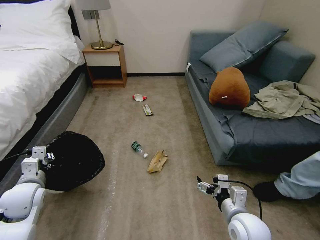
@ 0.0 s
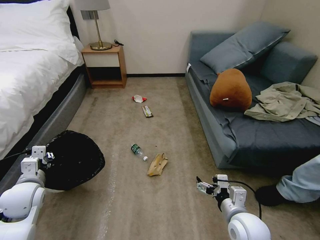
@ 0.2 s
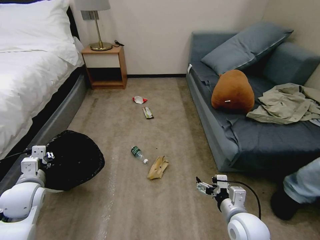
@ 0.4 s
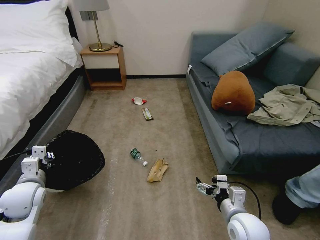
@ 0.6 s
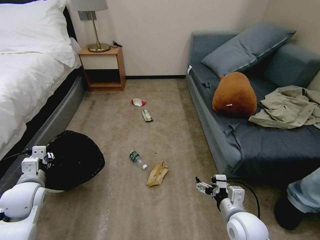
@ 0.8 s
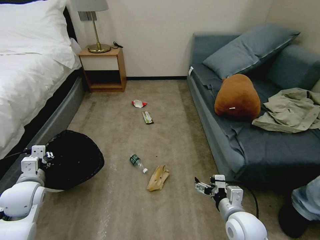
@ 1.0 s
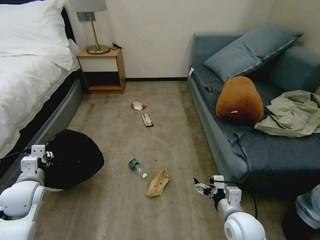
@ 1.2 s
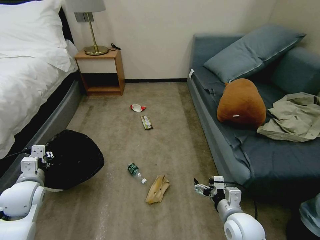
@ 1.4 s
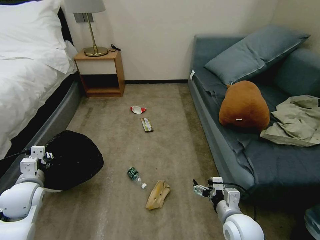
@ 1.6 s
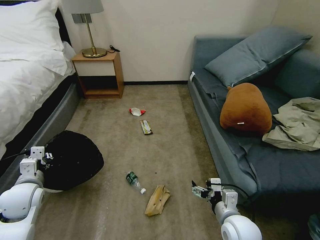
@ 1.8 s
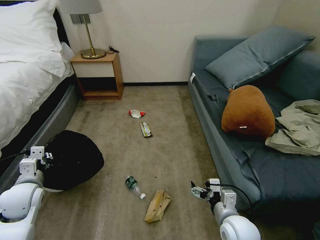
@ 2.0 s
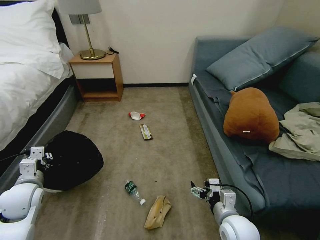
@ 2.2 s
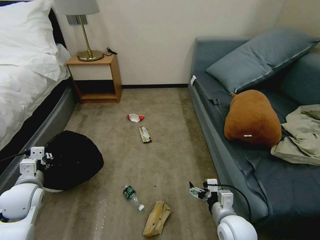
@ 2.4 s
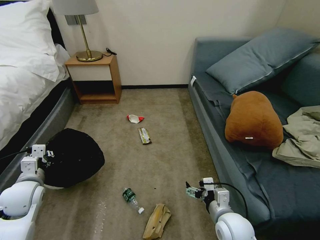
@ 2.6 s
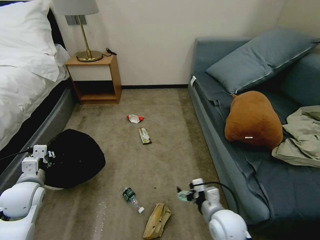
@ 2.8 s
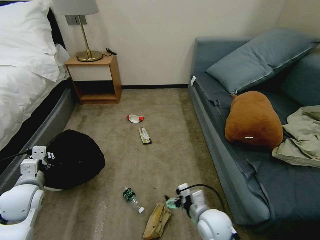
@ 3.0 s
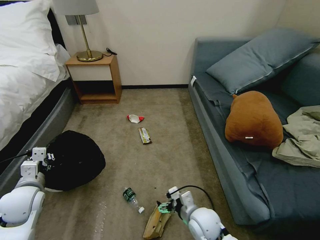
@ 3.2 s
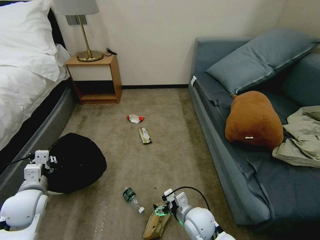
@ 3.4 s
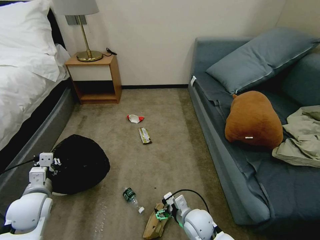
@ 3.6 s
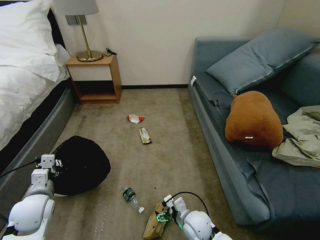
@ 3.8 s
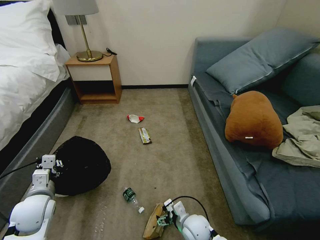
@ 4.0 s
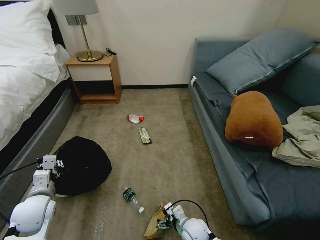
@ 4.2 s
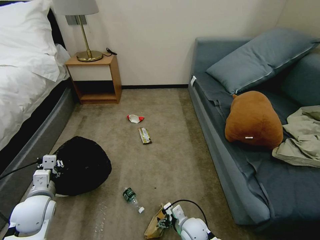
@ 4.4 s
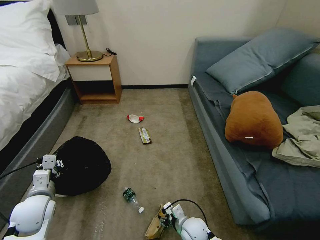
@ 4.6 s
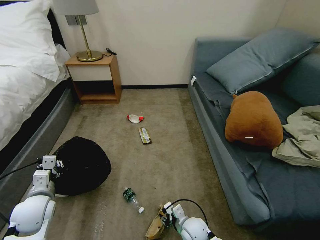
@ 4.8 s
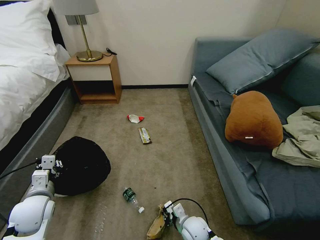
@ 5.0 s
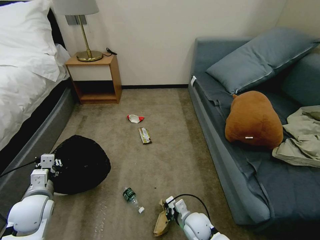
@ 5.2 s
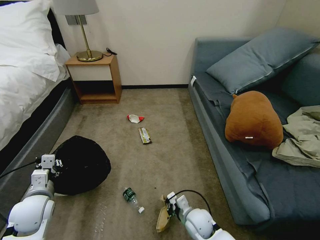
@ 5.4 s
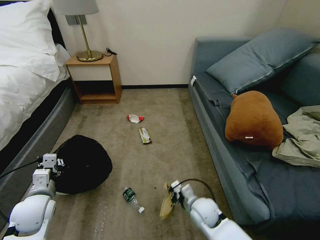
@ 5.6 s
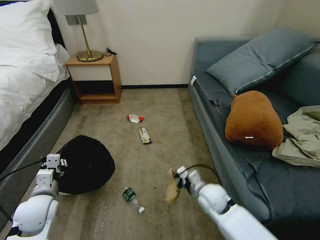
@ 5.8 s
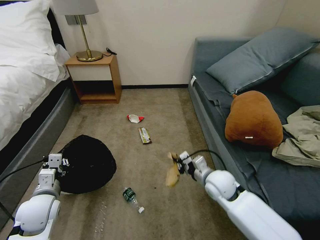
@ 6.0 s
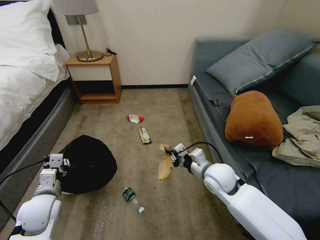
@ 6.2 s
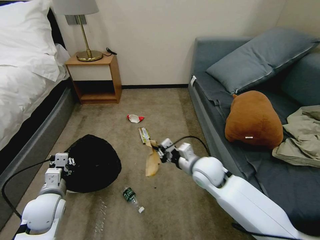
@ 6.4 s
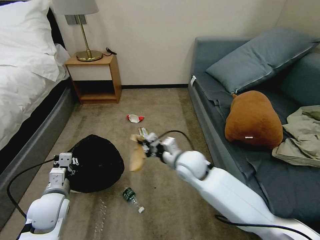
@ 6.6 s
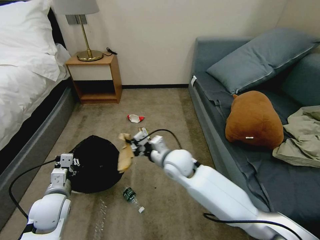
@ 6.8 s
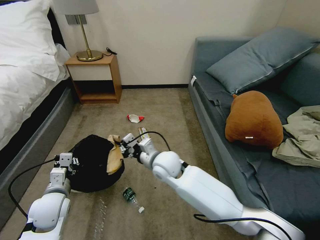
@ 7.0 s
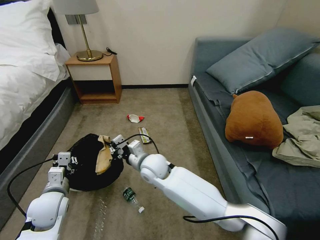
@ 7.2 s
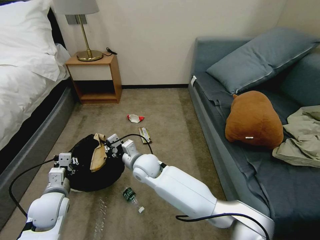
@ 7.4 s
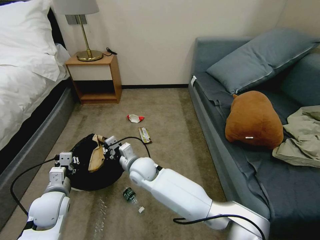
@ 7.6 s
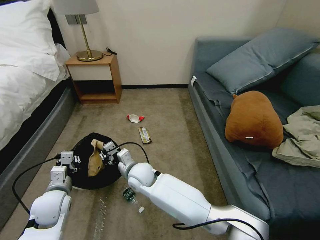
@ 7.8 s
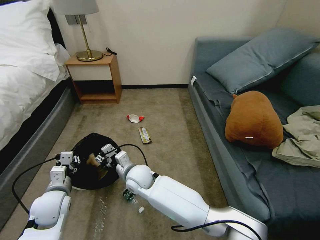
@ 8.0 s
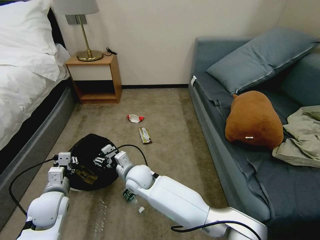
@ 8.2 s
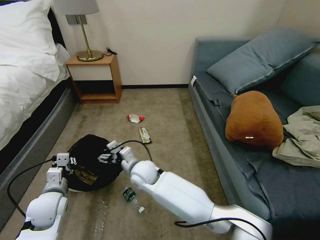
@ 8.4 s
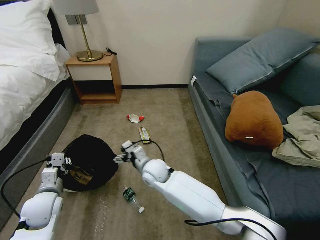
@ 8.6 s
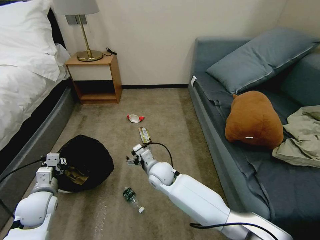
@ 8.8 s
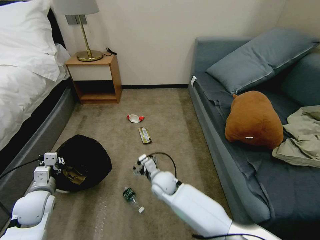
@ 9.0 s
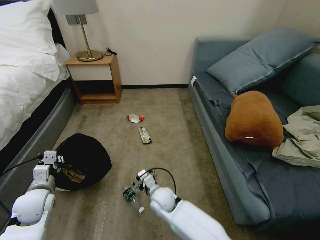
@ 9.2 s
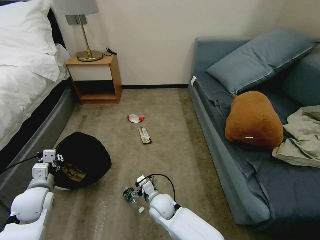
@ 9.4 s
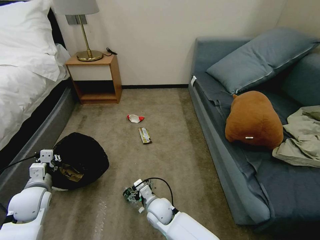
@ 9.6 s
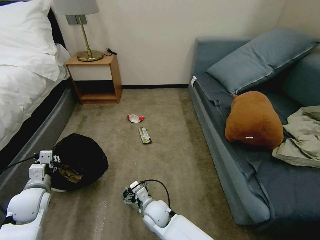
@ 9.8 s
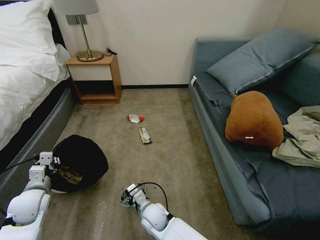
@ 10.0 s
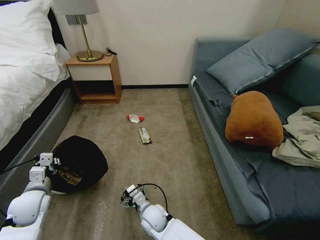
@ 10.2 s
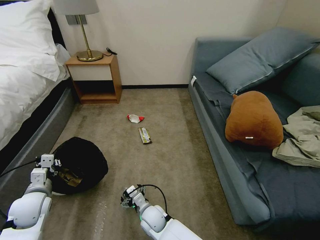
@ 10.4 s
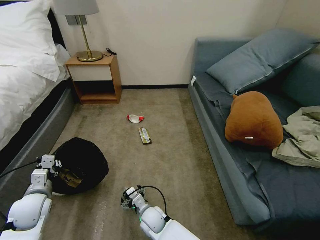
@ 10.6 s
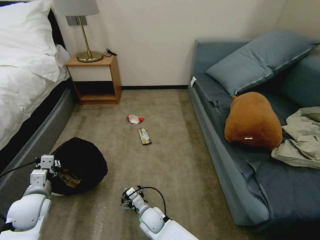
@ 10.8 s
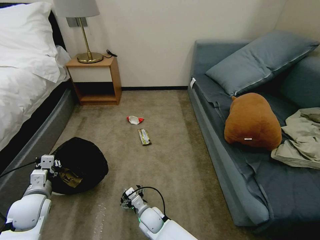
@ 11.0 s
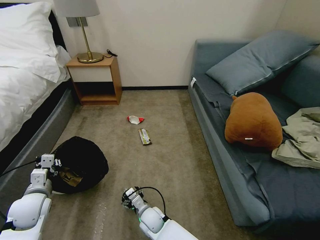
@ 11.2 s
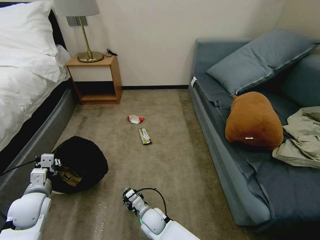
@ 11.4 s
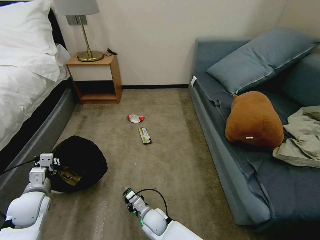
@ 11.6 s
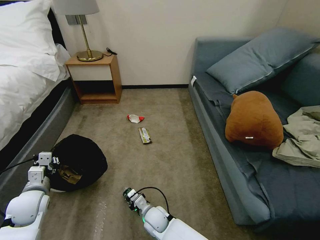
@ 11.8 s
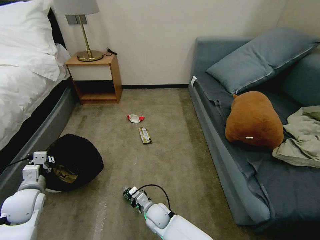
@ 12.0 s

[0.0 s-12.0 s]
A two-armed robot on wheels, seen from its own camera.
Task of the whole recording: Pick up the trash bin, then pick up the garbage on the floor and place it into the trash bin.
1.6 to 3.0 s: The right gripper moves to the left, some 5 cm.
3.0 to 4.4 s: The left gripper shifts by roughly 5 cm; the right gripper goes approximately 10 cm downward.
4.4 to 6.0 s: The right gripper moves upward, forward and to the right, approximately 20 cm, and closes its fingers.
6.0 to 7.6 s: The right gripper heads to the left, covering roughly 25 cm.
7.6 to 9.0 s: The right gripper heads to the right and downward, covering roughly 10 cm, and opens its fingers, while the left gripper travels to the left by approximately 5 cm.
9.0 to 10.4 s: The right gripper moves backward and downward, roughly 15 cm.
10.4 to 12.0 s: The right gripper closes its fingers.

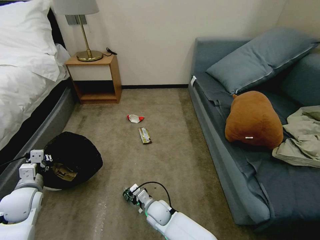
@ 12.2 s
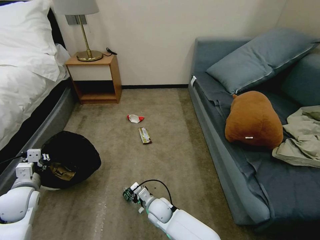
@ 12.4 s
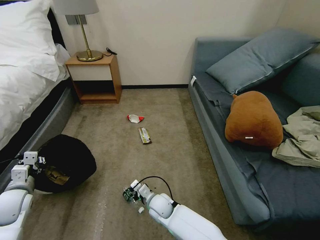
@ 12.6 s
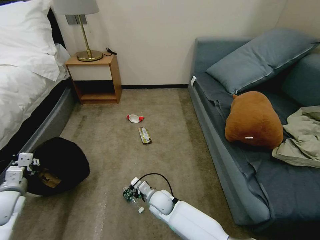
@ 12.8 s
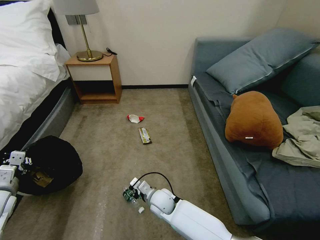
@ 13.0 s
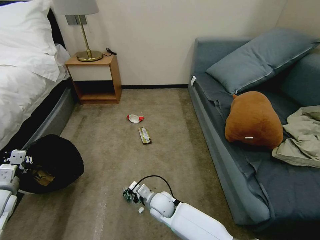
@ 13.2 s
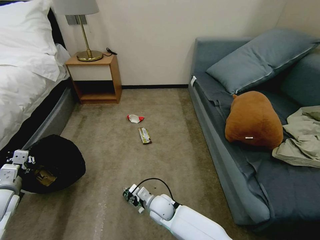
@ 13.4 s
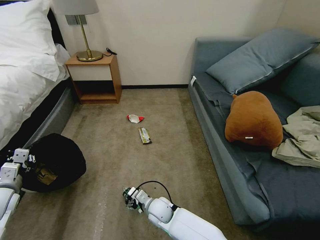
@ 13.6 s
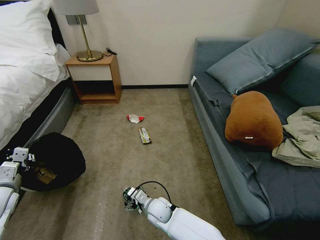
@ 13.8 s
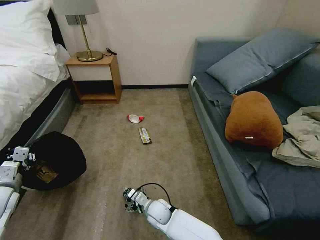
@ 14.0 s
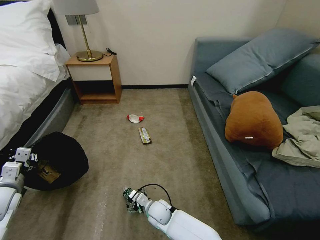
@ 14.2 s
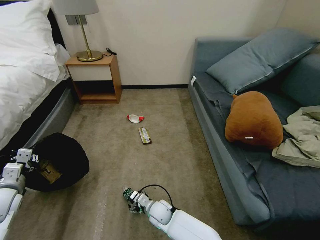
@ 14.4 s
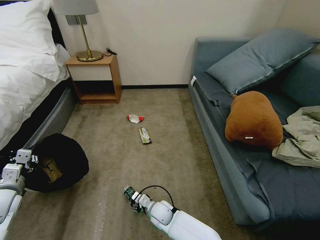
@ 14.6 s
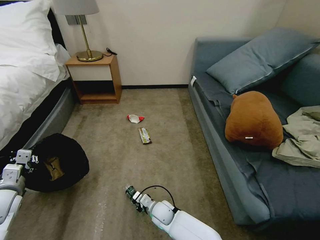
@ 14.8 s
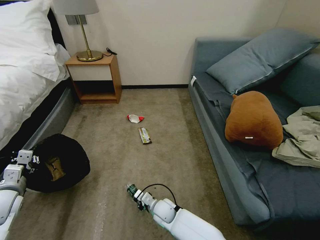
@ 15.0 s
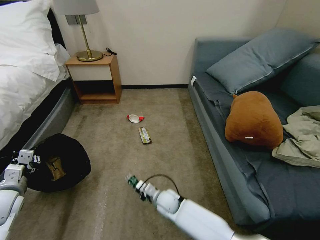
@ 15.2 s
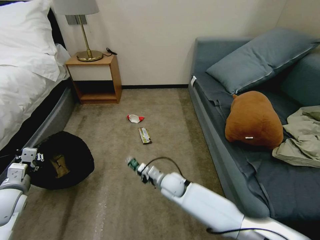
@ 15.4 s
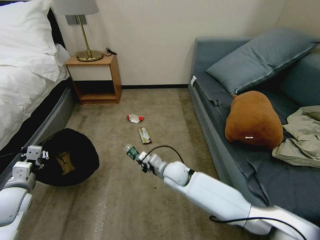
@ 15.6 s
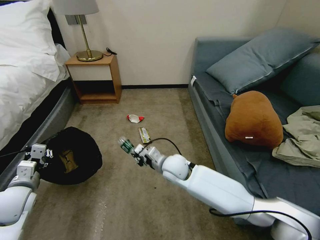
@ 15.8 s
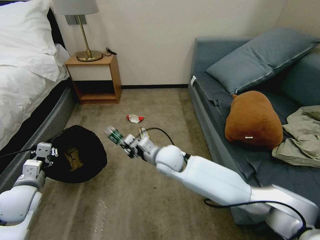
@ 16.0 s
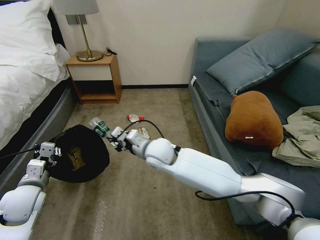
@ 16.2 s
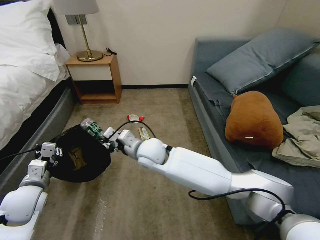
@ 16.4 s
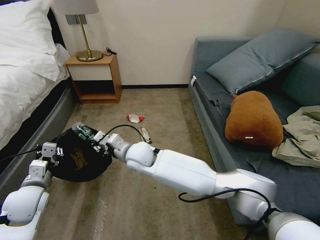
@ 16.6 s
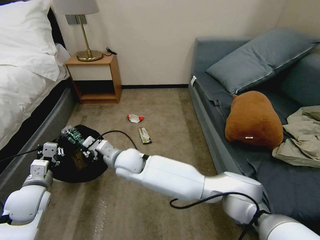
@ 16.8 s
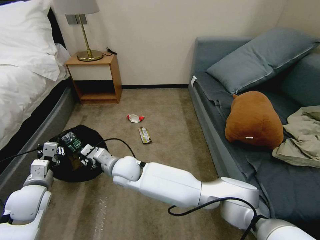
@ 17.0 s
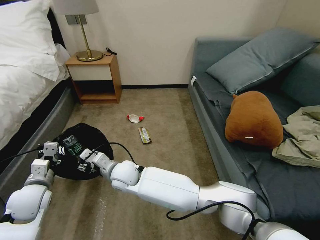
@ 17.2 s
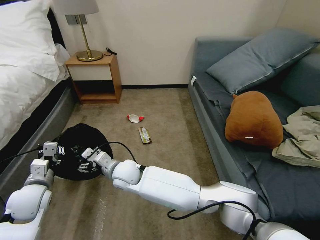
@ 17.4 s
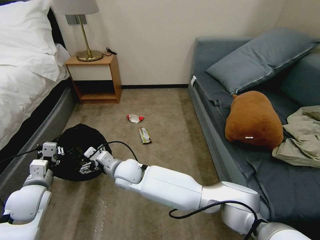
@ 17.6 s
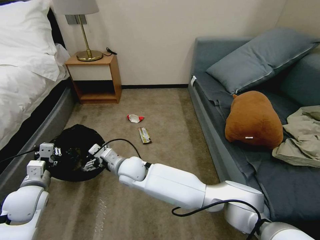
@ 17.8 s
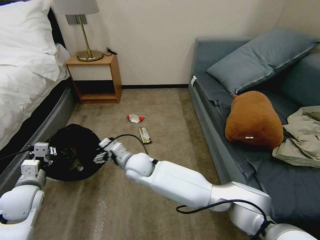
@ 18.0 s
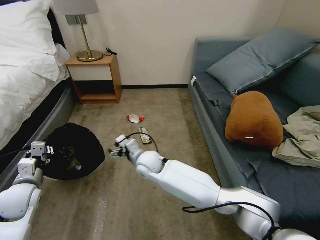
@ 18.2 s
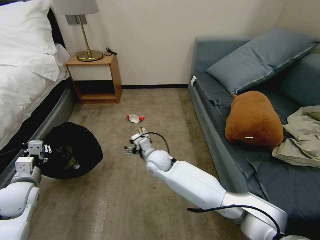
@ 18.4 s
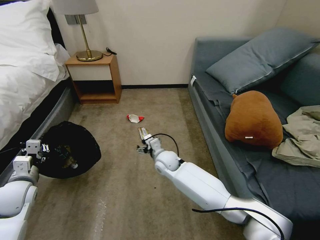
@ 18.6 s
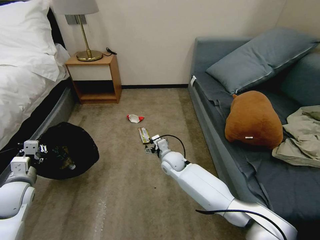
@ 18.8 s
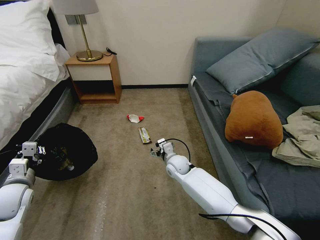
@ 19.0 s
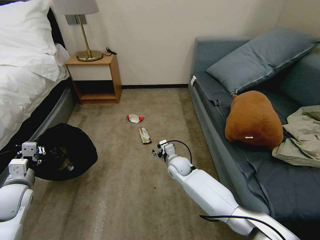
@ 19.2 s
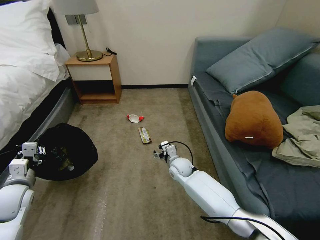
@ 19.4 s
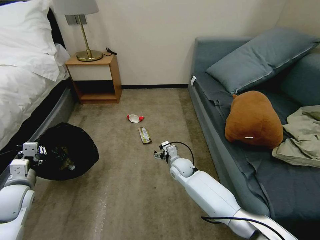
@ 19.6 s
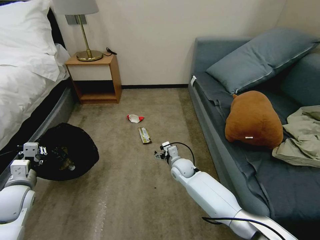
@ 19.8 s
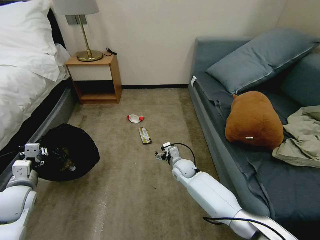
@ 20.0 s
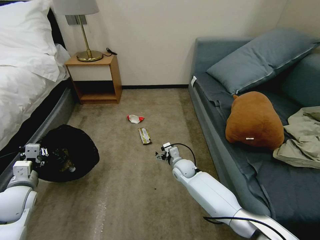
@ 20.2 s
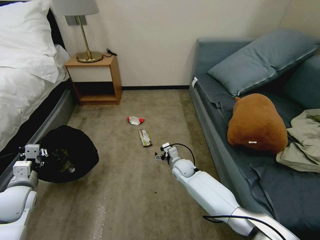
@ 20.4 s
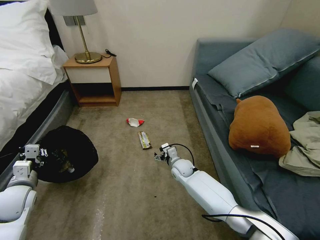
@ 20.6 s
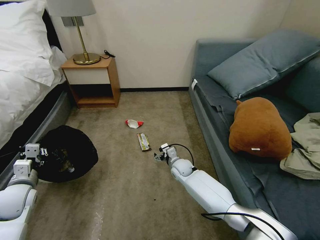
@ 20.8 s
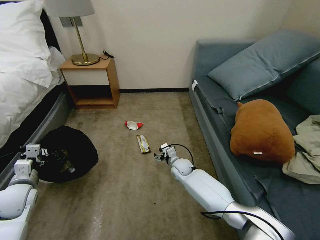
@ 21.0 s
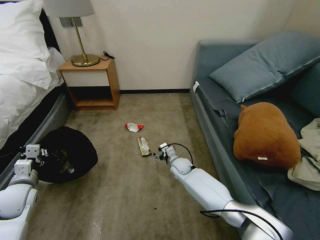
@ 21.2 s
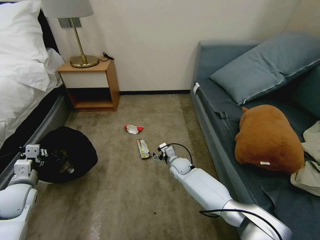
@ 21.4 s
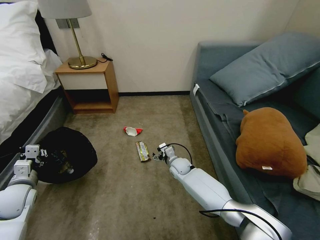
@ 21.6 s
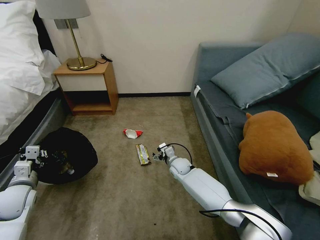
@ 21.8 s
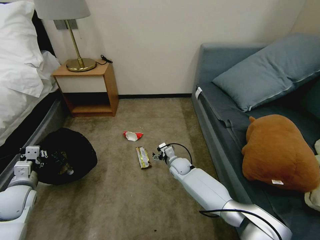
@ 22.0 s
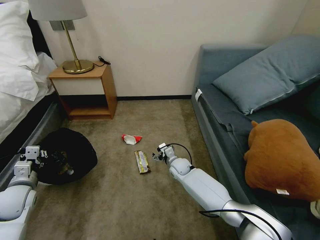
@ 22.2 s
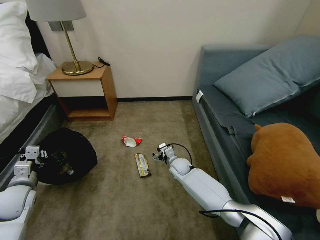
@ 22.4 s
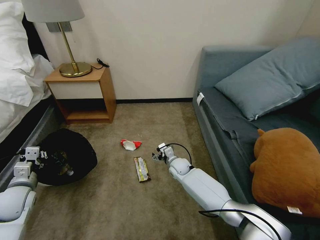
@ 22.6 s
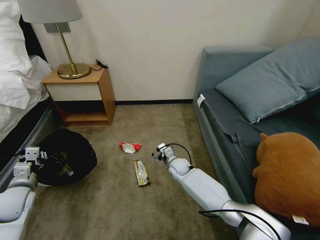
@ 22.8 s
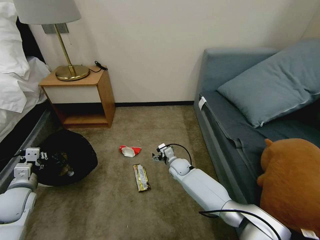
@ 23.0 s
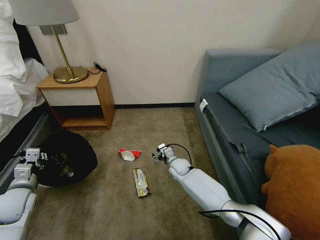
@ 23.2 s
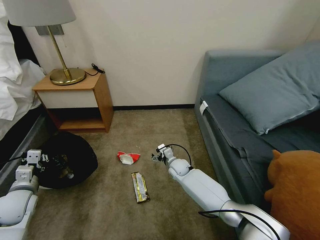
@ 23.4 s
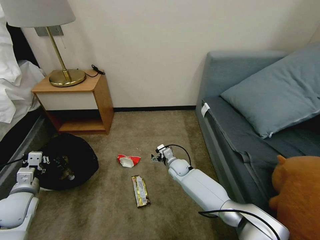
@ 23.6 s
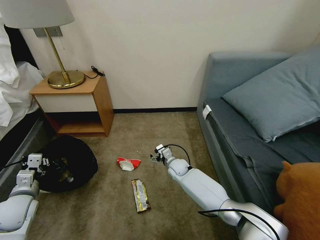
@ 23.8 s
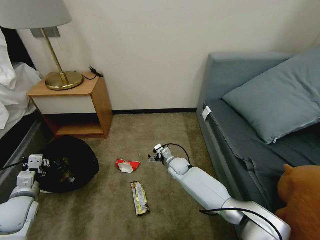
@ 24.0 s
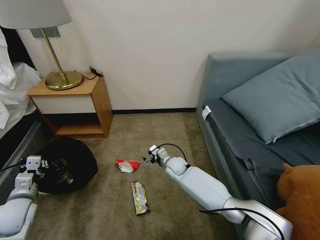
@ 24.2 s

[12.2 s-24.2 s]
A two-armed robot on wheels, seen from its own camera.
Task of the whole recording: Pick up the trash bin, then pick up the garbage on the floor and place it into the trash bin.
12.2 to 13.8 s: The right gripper opens up, while the left gripper travels to the left by roughly 5 cm.
13.8 to 15.2 s: The right gripper changes place by about 5 cm, and closes up.
15.2 to 16.6 s: The left gripper is displaced to the right by approximately 10 cm. Meanwhile the right gripper heads upward and to the left, covering some 25 cm.
16.6 to 18.2 s: The right gripper travels downward by about 5 cm, and opens its fingers.
18.2 to 19.8 s: The right gripper goes approximately 15 cm to the right and downward.
